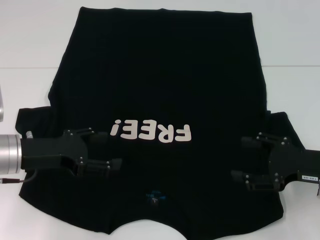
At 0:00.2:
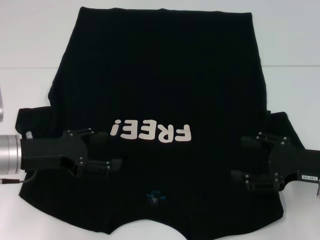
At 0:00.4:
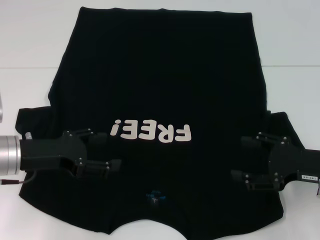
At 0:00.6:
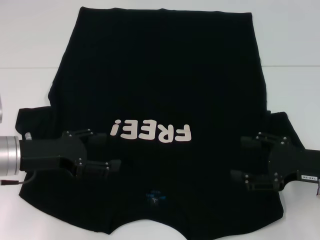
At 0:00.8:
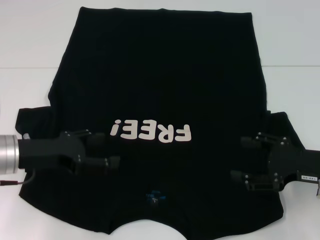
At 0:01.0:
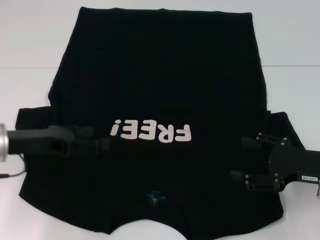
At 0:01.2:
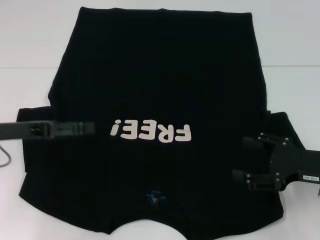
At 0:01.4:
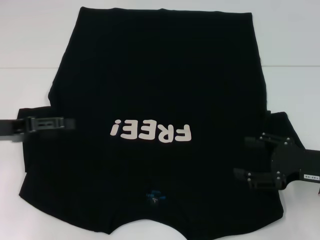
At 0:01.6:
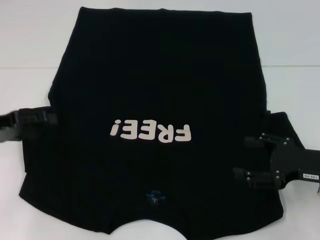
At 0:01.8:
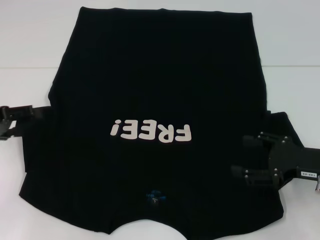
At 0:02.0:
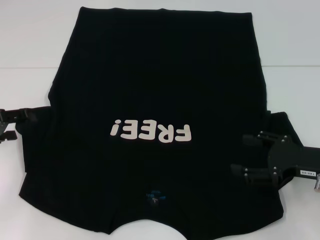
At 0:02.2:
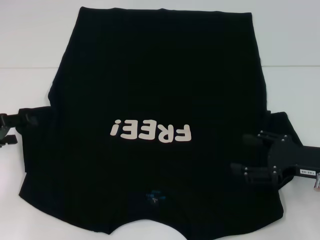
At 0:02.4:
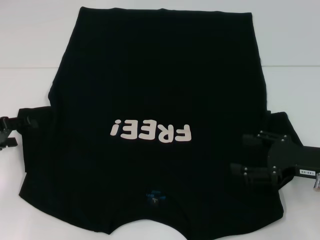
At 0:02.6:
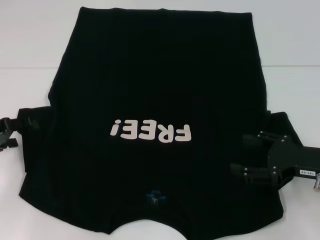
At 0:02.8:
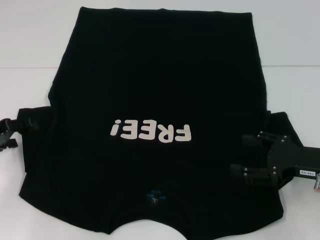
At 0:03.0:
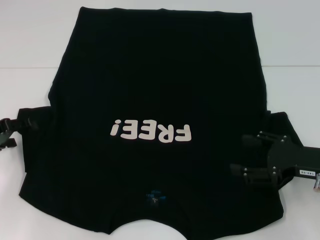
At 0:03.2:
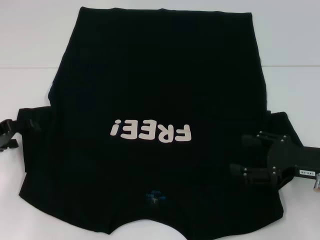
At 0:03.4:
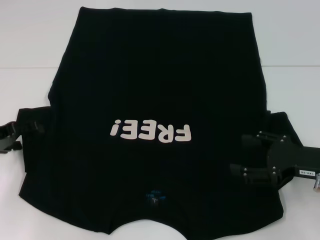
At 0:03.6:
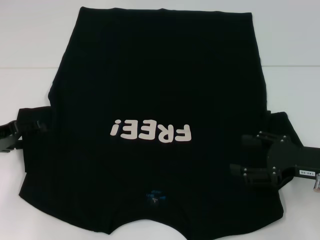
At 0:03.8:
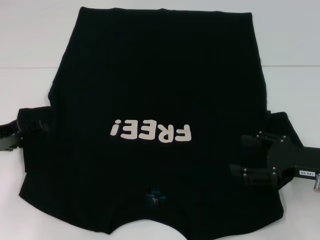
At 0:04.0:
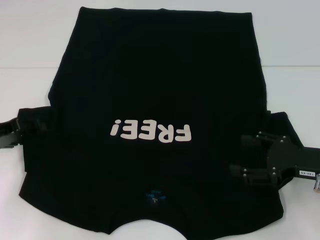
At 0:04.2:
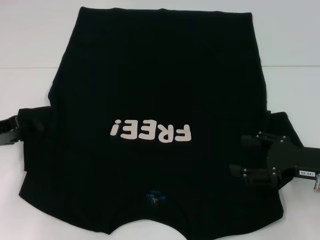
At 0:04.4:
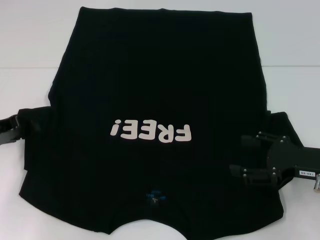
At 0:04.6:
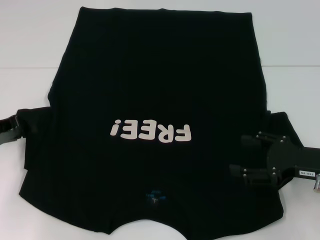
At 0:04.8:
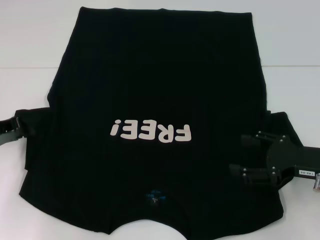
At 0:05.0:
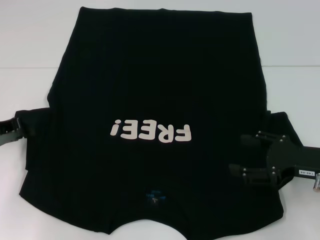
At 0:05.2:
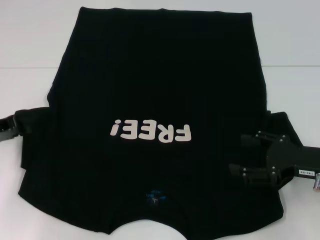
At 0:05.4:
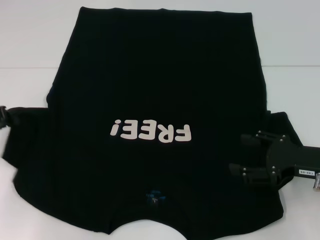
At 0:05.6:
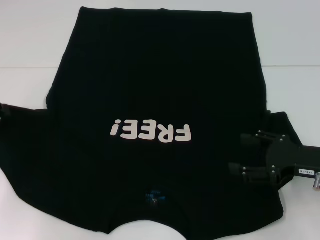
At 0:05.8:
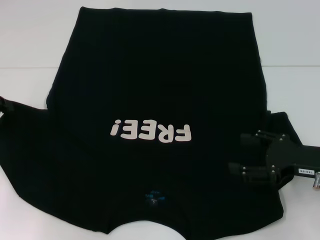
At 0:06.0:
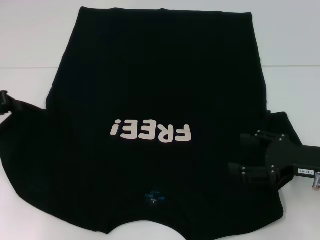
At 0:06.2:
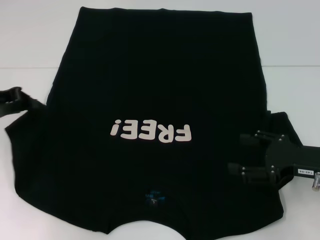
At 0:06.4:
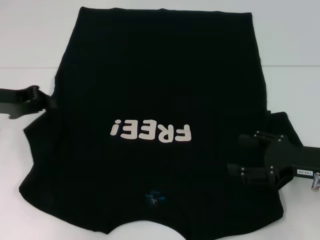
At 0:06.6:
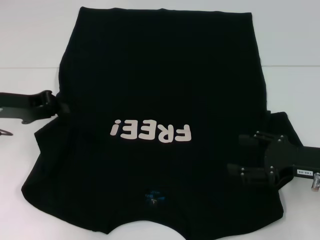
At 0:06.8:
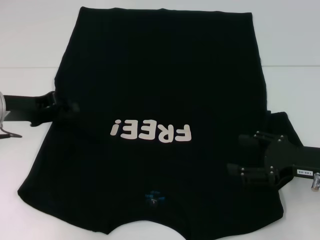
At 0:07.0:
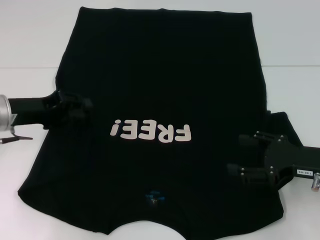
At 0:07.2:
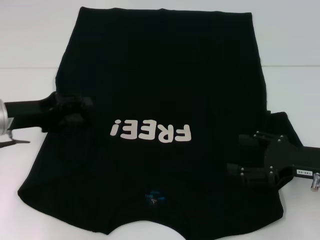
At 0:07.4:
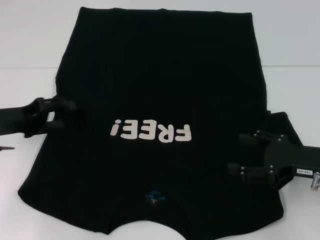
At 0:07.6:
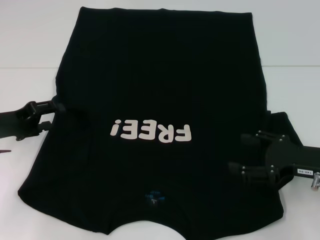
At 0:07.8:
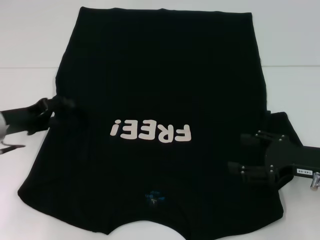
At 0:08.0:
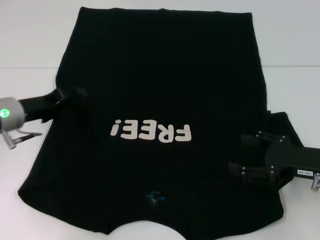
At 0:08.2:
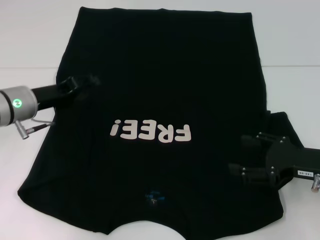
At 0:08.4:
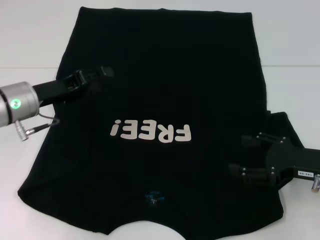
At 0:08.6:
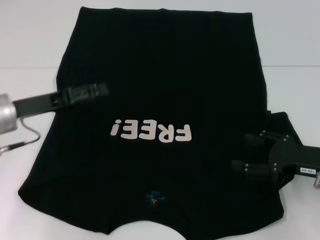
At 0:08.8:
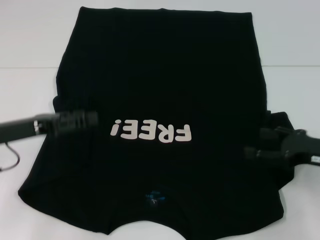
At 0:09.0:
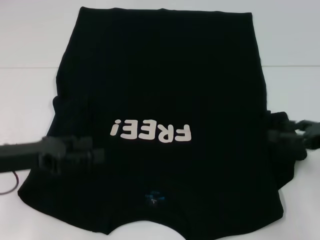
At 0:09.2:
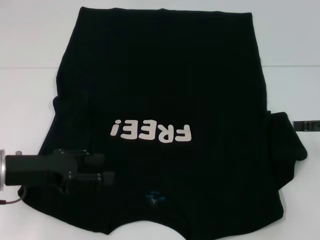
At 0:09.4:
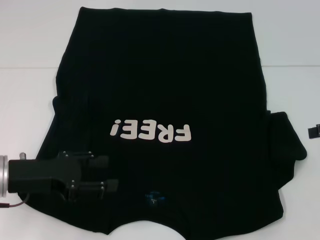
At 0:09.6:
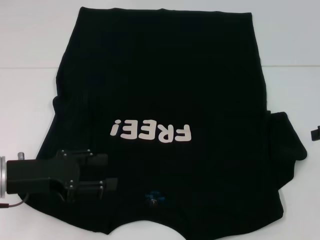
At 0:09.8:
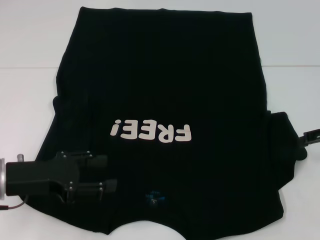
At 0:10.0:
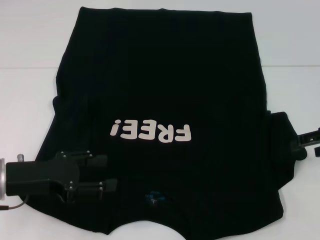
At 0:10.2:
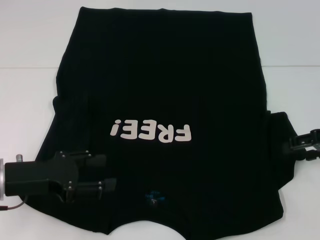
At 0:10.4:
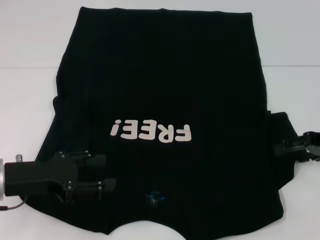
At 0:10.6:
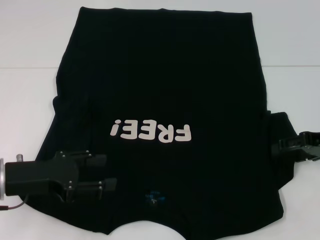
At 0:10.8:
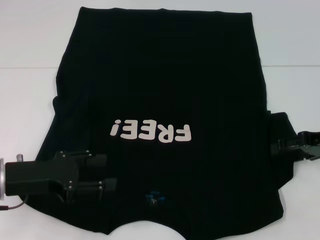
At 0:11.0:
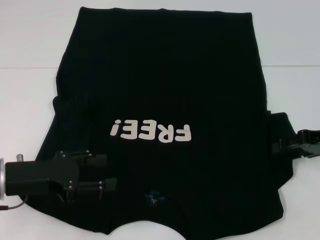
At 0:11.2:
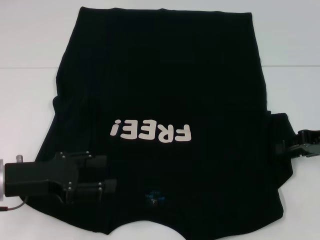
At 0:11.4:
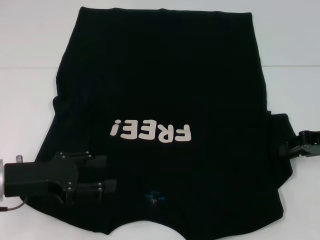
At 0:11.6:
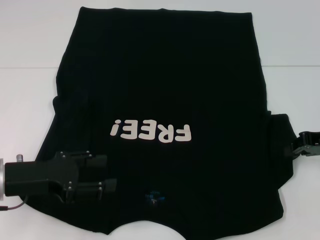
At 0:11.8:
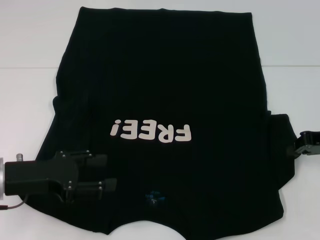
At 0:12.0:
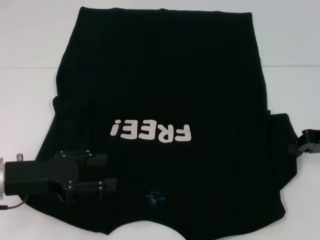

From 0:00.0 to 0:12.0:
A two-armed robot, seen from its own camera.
Step, from 0:00.0 to 0:07.6: Fold the bottom left sleeve with your left hand.
From 0:00.0 to 0:01.6: The left gripper goes roughly 10 cm to the left.
From 0:01.6 to 0:04.4: There are only small adjustments of the grippers.
From 0:04.4 to 0:06.0: The left gripper closes.
From 0:06.0 to 0:07.6: The left gripper ends up roughly 5 cm from where it was, and opens its fingers.
From 0:07.6 to 0:09.0: The right gripper goes approximately 5 cm to the right; the left gripper shifts some 5 cm backward.
From 0:10.4 to 0:12.0: The right gripper closes up.

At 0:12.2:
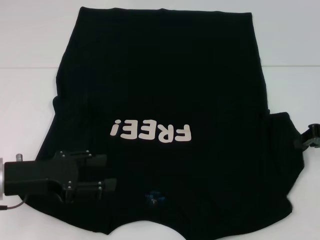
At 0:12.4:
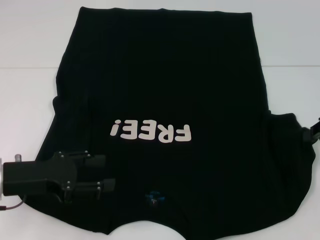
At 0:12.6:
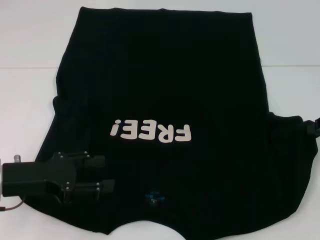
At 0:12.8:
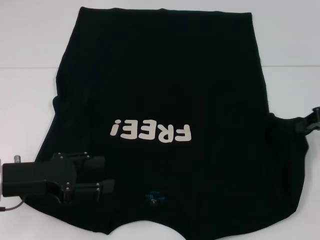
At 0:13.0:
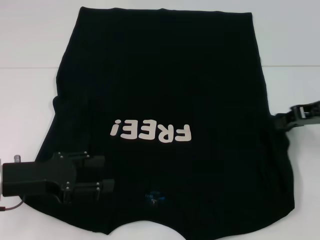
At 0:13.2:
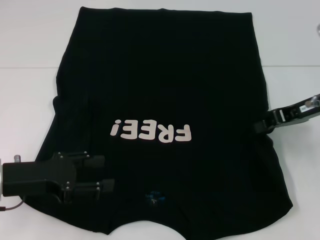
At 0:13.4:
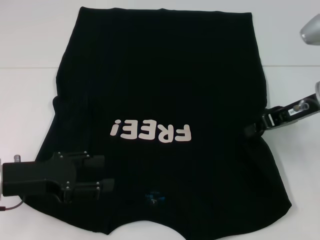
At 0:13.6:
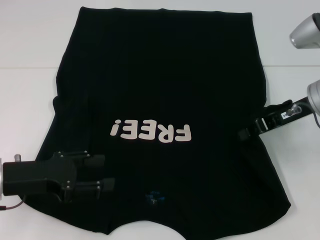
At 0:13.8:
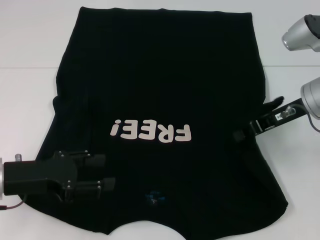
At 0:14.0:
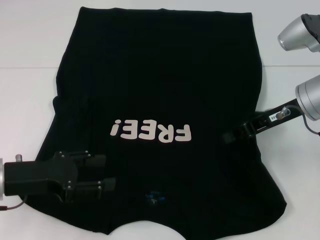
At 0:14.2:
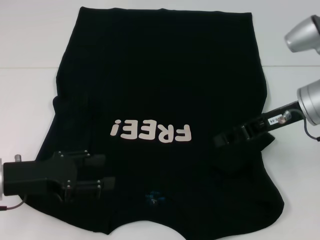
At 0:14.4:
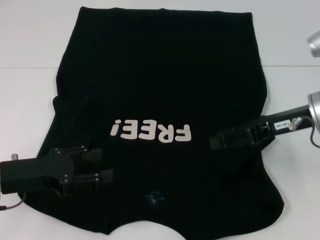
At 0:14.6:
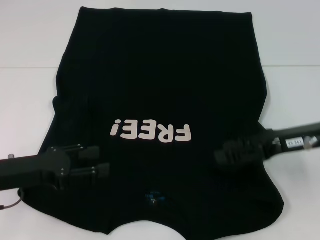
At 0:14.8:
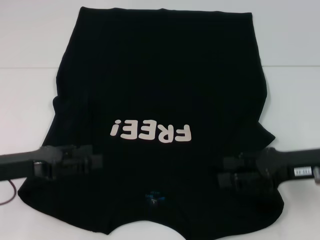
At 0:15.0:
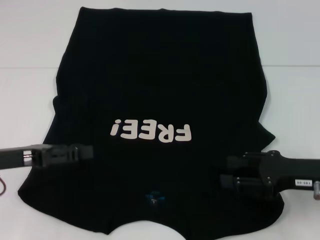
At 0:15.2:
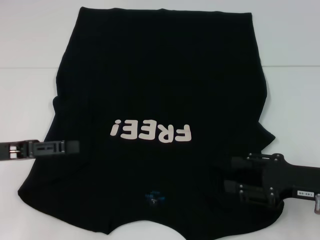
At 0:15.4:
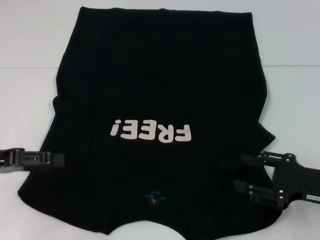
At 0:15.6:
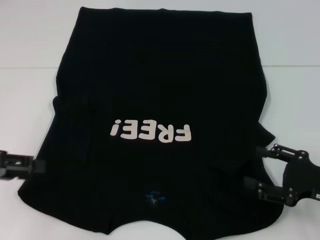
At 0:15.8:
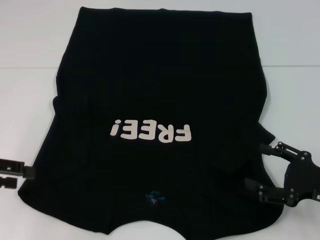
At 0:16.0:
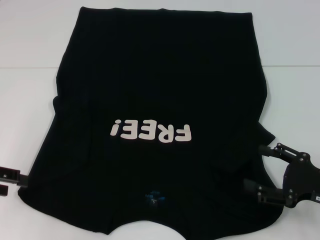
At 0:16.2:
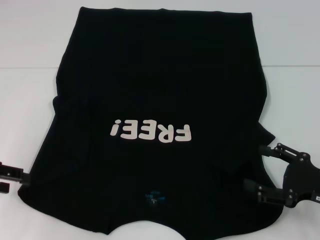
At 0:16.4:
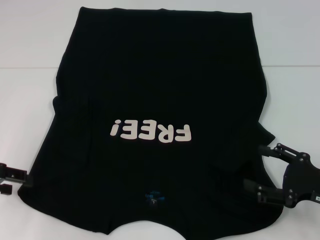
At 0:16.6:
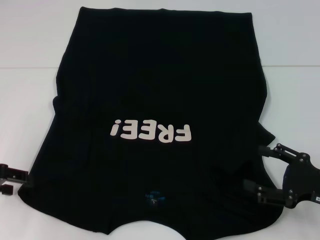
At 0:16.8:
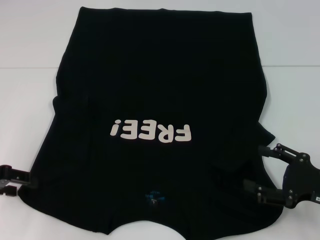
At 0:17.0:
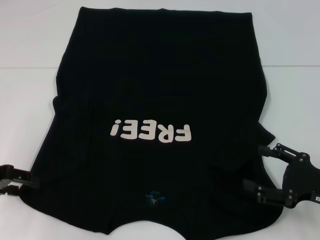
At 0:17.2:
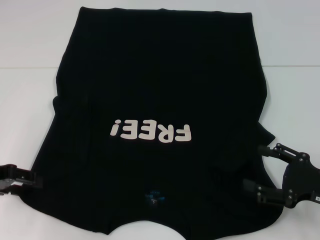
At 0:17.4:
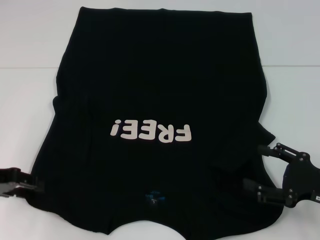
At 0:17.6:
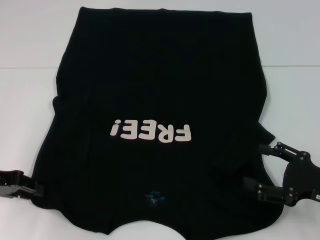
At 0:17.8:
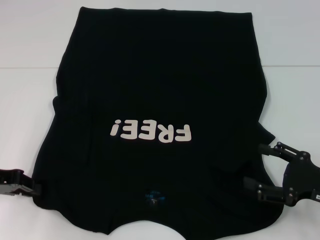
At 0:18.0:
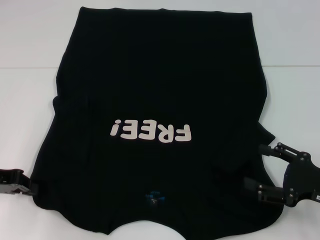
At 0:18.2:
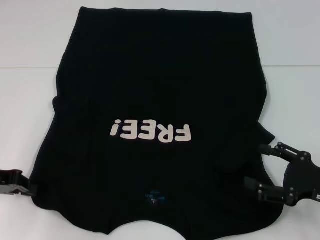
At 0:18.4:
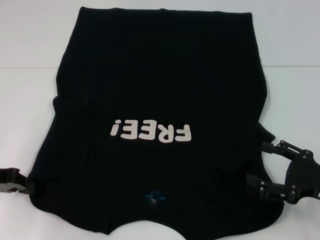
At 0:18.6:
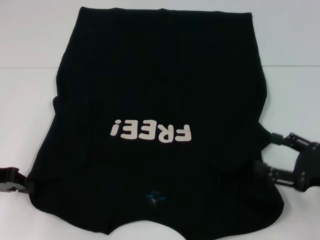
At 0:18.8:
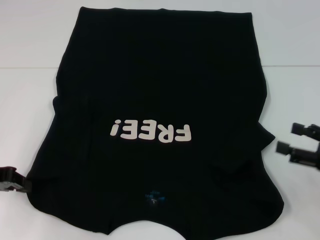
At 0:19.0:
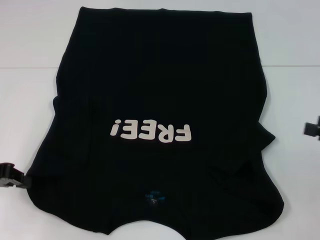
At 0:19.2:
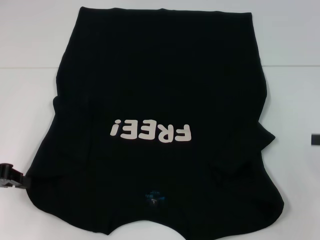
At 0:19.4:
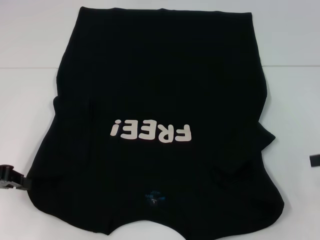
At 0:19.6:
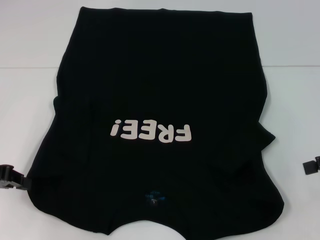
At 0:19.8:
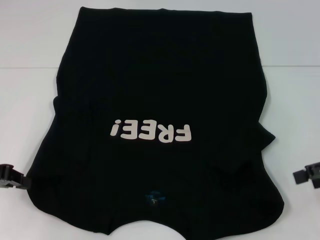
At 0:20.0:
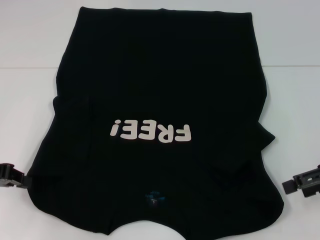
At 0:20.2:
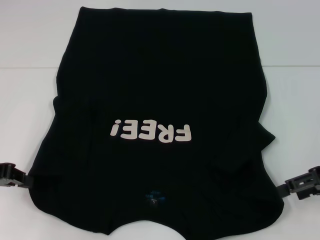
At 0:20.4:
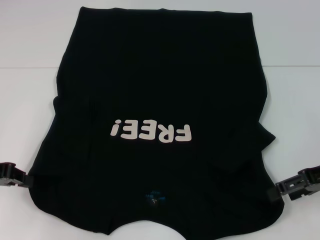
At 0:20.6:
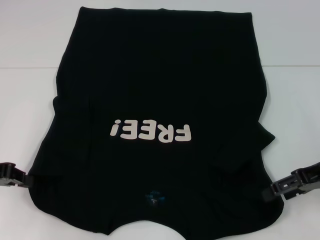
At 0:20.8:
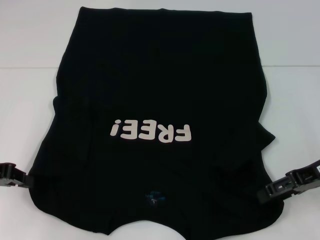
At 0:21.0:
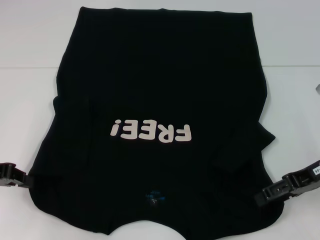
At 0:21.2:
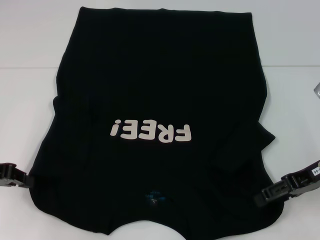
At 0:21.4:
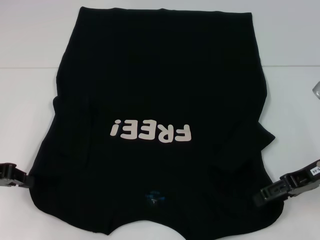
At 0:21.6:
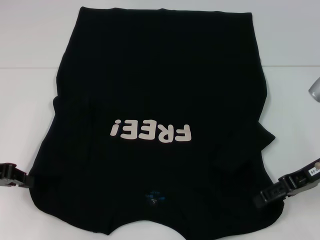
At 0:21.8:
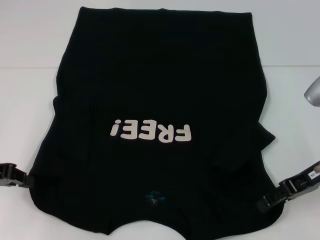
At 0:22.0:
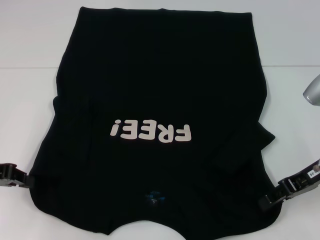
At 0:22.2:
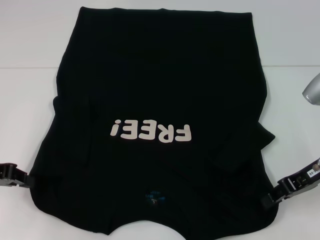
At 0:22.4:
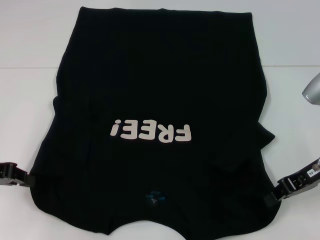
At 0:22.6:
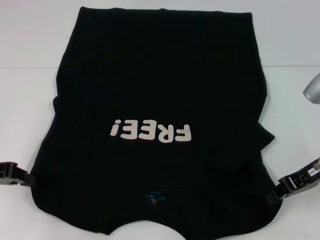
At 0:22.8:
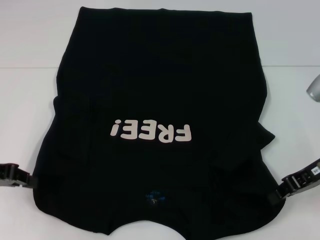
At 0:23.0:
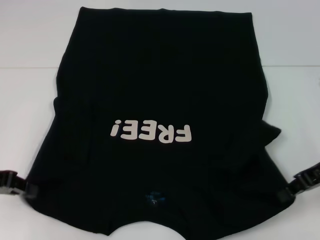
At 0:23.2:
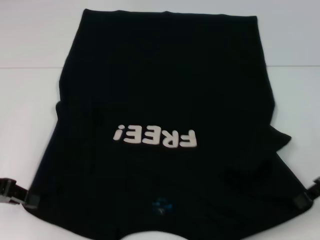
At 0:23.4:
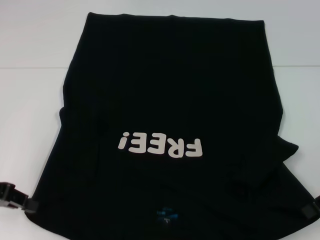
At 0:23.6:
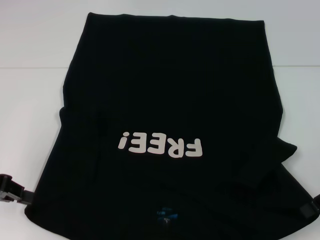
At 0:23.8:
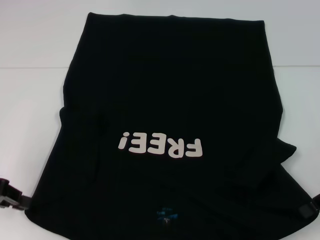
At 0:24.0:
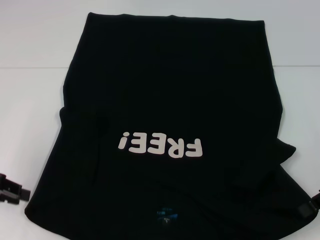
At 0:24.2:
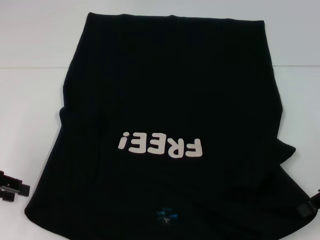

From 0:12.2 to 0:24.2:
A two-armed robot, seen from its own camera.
Step, from 0:12.2 to 0:15.4: Fold the bottom right sleeve with your right hand.
Step, from 0:15.6 to 0:22.4: Grab the bottom left corner with your left hand.
Step, from 0:15.6 to 0:22.4: Grab the bottom right corner with your right hand.
From 0:12.2 to 0:13.8: The right gripper moves to the left, some 10 cm.
From 0:13.8 to 0:15.2: The right gripper moves backward and downward, about 15 cm, and opens. The left gripper changes place by roughly 5 cm.
From 0:16.6 to 0:18.2: The left gripper closes.
From 0:18.2 to 0:19.8: The right gripper shifts approximately 10 cm upward and forward.
From 0:19.8 to 0:21.2: The right gripper is displaced to the left by some 5 cm.
From 0:21.2 to 0:22.6: The right gripper closes up.
From 0:22.6 to 0:24.2: The right gripper changes place by some 5 cm.
